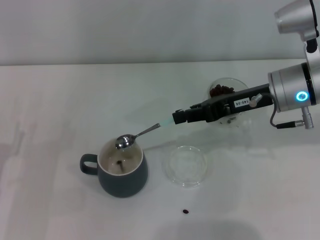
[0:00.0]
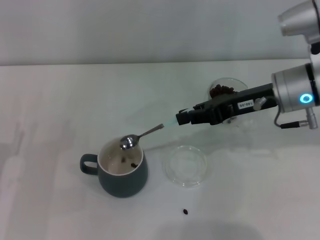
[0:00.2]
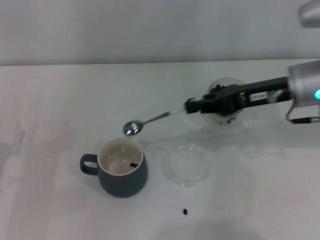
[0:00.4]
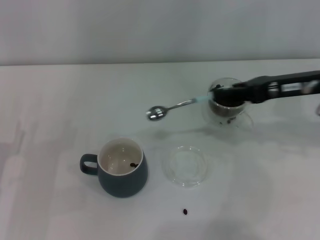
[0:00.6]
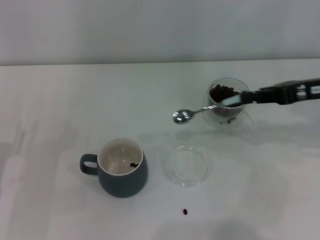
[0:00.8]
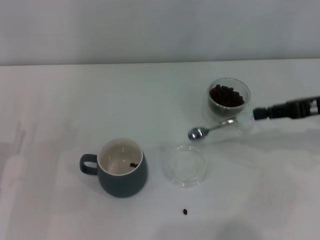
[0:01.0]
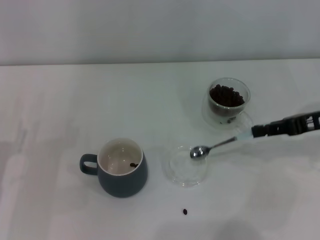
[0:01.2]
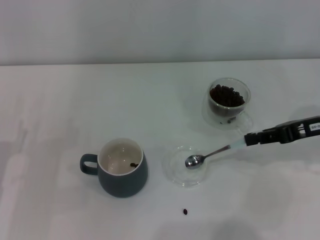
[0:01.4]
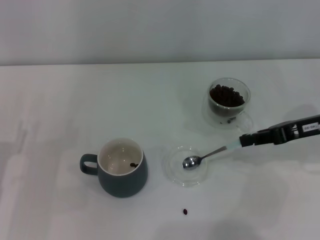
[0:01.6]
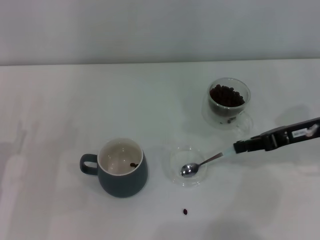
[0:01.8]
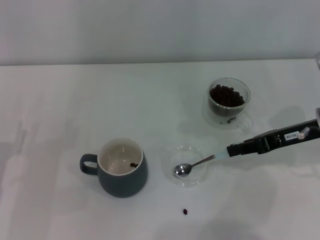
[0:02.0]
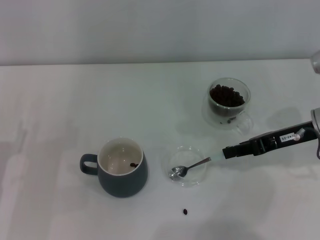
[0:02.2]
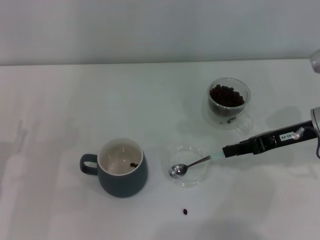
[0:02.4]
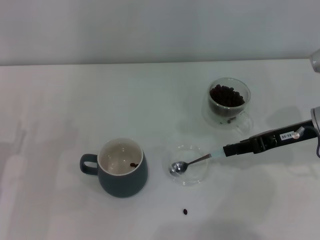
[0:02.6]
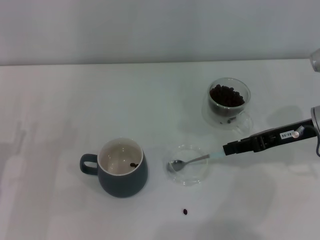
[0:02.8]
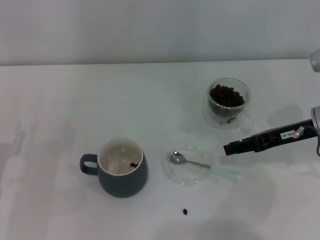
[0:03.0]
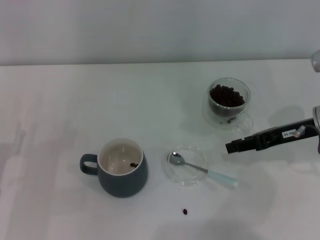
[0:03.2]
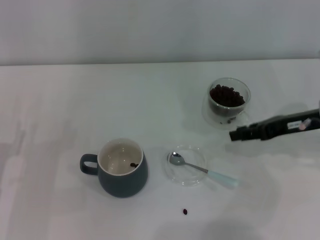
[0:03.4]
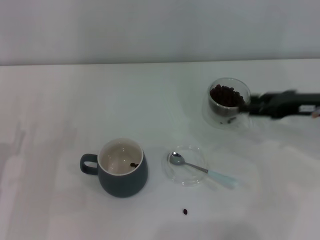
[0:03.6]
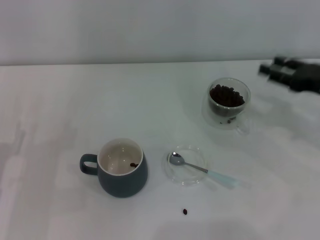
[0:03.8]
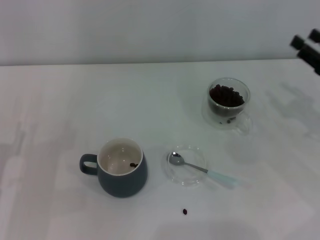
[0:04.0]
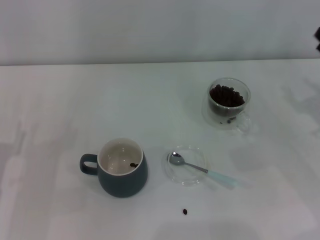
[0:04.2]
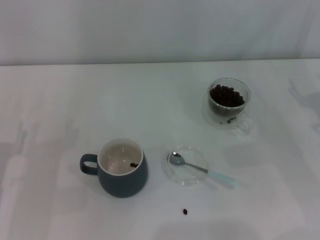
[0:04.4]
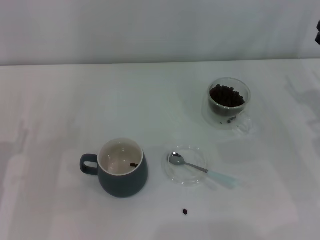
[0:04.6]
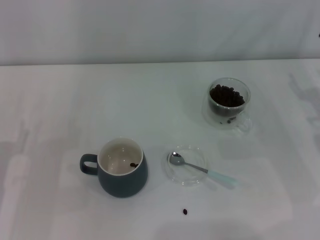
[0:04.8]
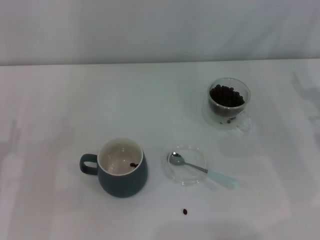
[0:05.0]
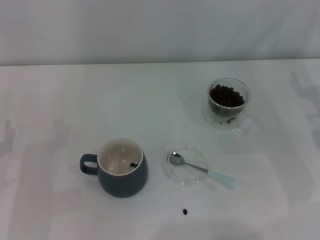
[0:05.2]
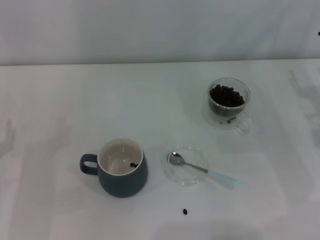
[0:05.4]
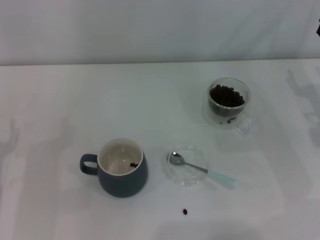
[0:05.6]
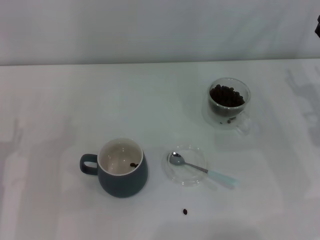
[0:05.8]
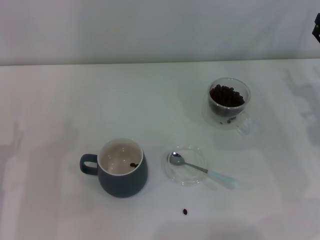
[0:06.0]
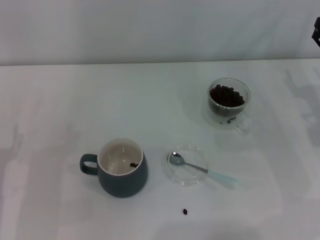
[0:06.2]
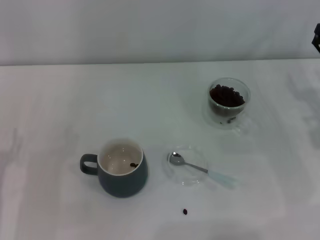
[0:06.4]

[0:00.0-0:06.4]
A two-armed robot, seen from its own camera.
Task of the whole recording: Use a blue spoon to take out the coffee beans from the glass and pour them into the gray cup.
Step, 0:00.4 to 0:03.0: Place the spoon back in its original place with the right gripper.
0:00.0 to 0:01.6: The right gripper moves to the right, approximately 10 cm.
0:01.6 to 0:03.2: There are only small adjustments of the grippers.
0:03.2 to 0:04.8: The right gripper travels to the right by about 5 cm, and opens its fingers.

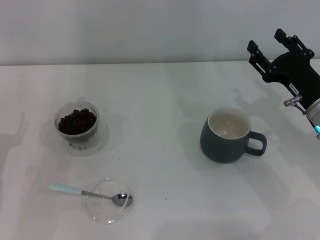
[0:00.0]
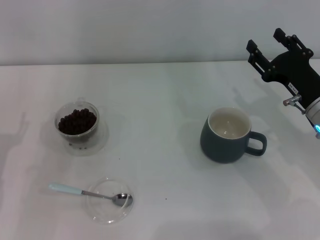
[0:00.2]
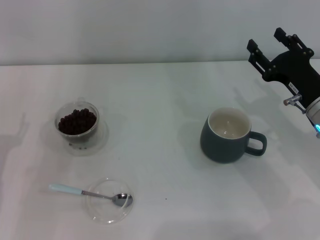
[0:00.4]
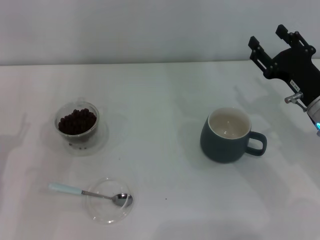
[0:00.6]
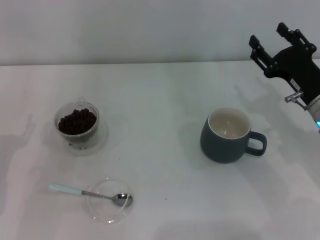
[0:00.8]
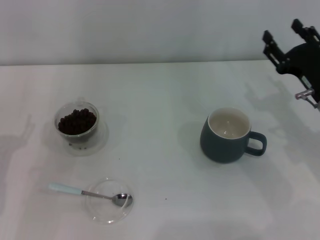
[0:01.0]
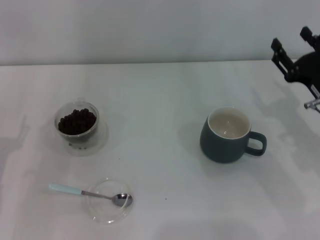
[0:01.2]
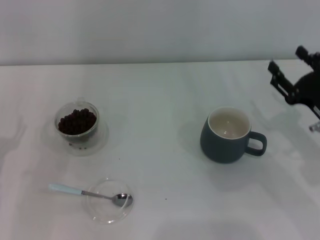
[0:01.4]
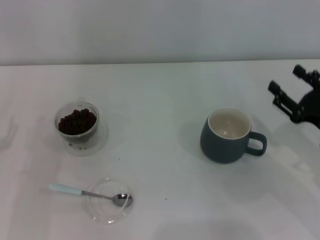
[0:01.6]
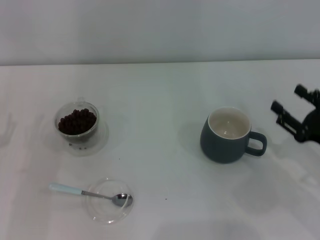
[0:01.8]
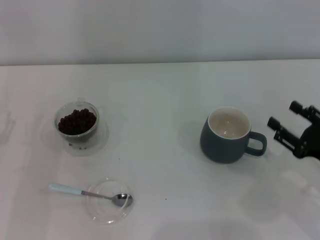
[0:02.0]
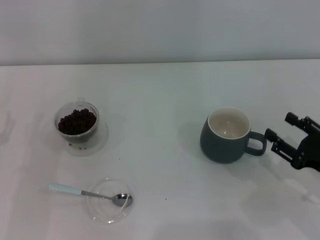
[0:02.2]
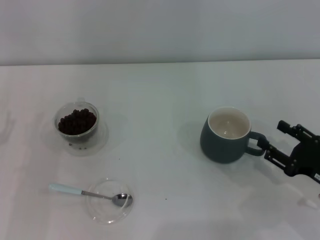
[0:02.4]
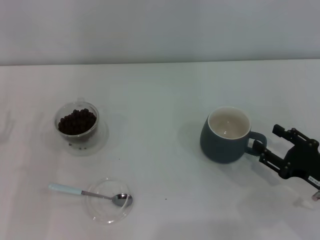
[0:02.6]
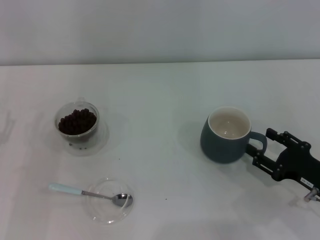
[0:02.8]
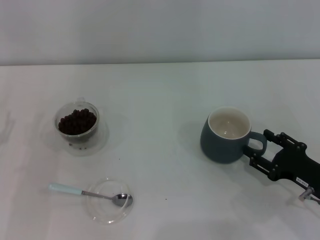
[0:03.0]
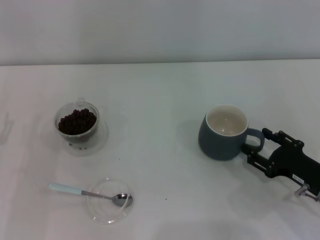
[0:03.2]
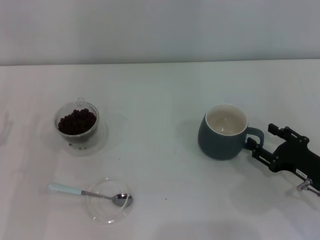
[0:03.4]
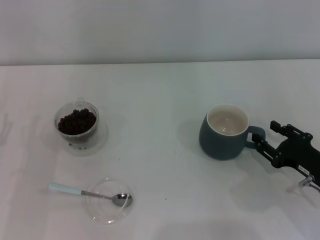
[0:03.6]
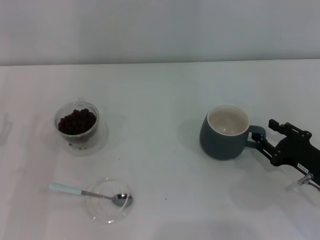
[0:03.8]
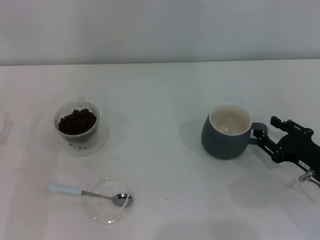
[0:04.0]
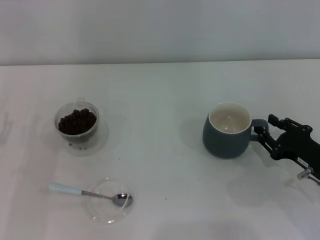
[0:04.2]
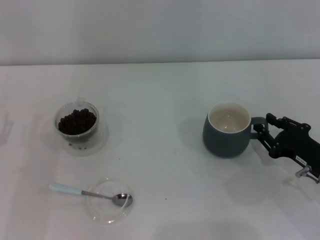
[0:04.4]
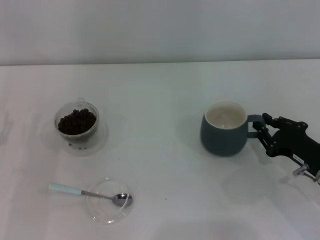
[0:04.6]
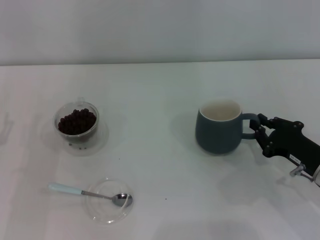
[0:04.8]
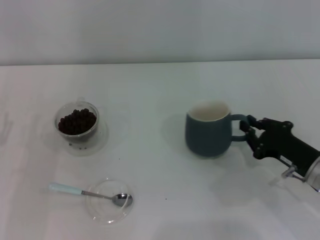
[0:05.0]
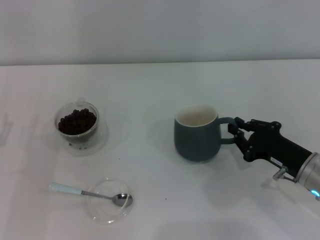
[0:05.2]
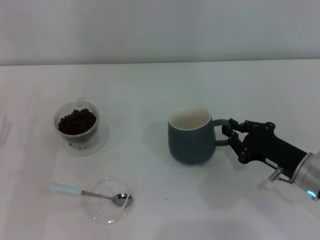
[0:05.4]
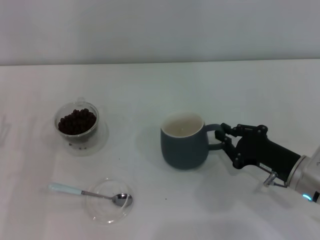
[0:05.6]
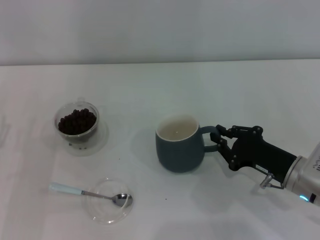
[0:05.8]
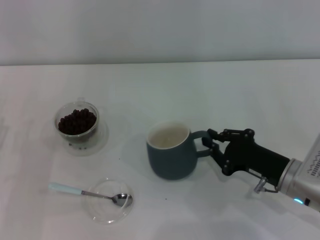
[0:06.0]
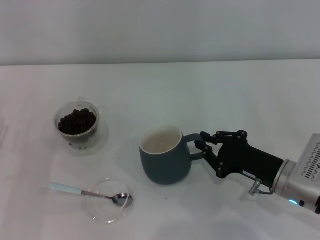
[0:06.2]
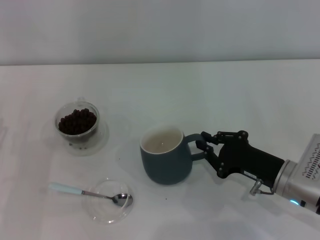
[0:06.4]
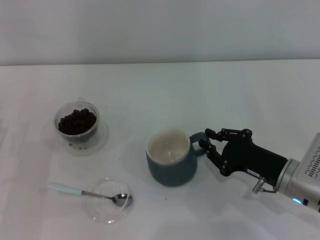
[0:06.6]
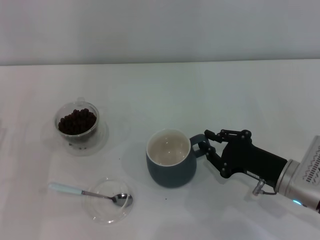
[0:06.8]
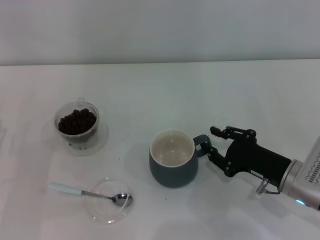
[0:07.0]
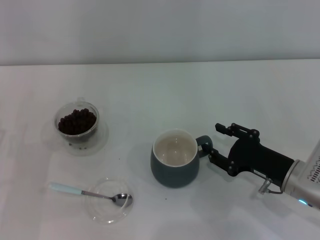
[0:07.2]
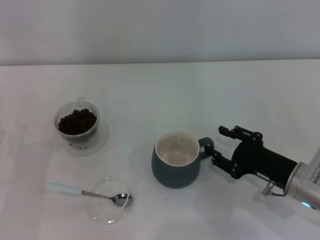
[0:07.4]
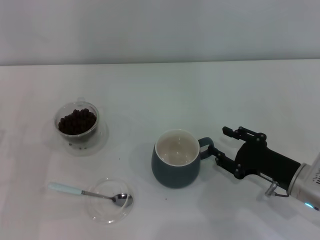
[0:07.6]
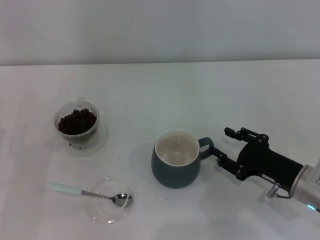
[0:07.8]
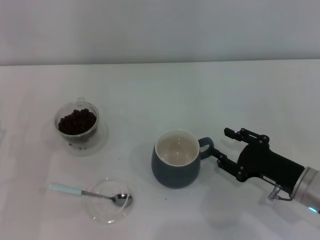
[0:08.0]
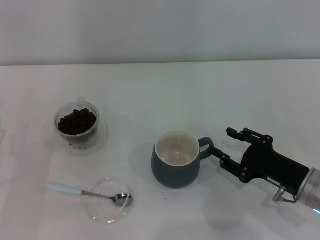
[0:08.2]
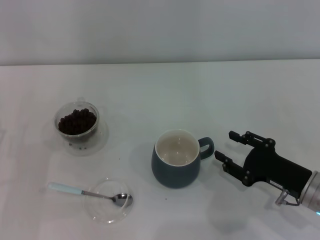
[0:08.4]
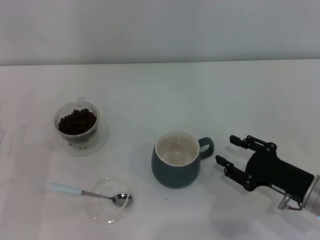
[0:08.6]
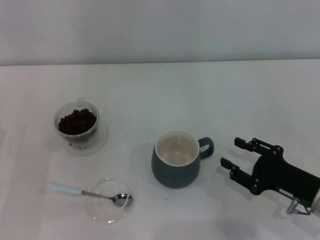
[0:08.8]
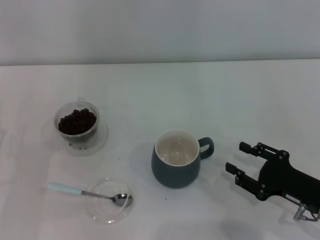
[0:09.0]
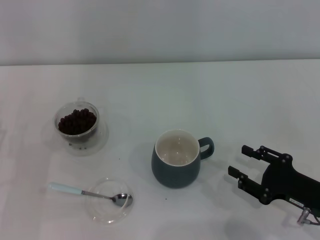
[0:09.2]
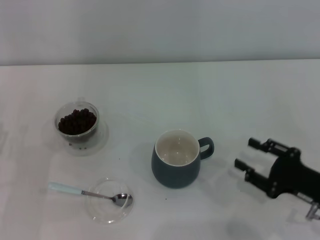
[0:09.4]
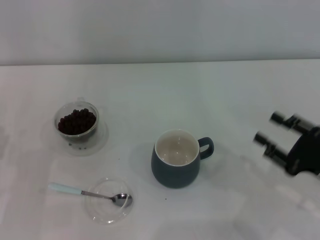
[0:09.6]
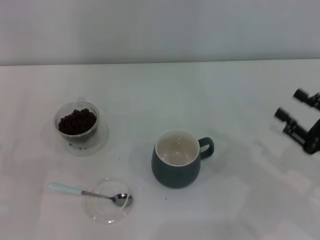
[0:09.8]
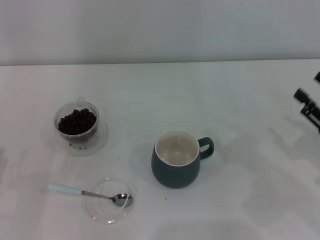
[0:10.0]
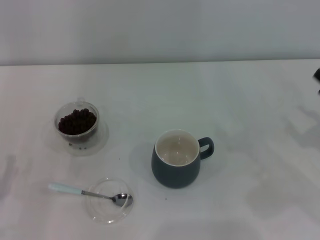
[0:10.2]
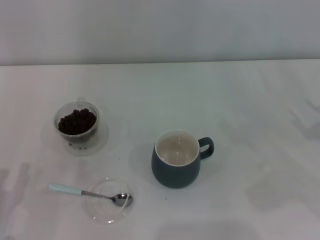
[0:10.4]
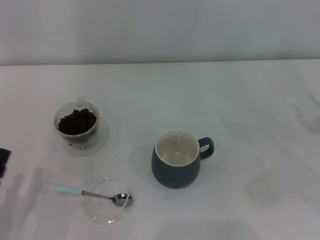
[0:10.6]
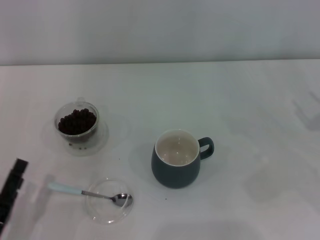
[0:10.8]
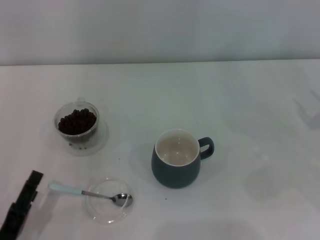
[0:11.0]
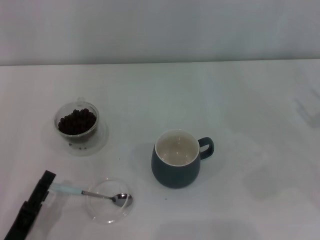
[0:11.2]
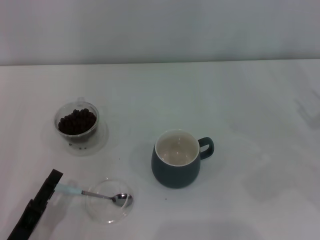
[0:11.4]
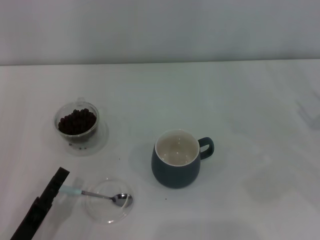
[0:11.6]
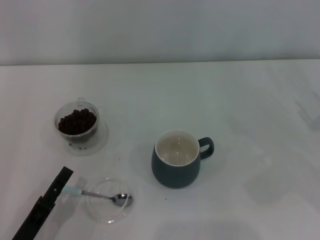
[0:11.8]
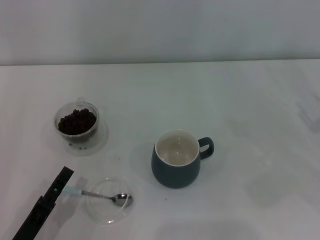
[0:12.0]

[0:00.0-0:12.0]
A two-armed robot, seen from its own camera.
Task of the whole recording: Use a blue spoon to take out the coffee beans from the glass and pour them into the gray cup.
Step, 0:00.0 to 0:08.8: Move the cup to the center of view with the left gripper.
0:00.0 to 0:01.6: The right gripper goes some 5 cm backward.
0:01.6 to 0:03.0: The right gripper changes place by about 5 cm.
0:03.0 to 0:04.4: The grippers make only small movements.
0:04.4 to 0:06.0: The right gripper shifts approximately 5 cm to the left, and closes up.
0:06.0 to 0:07.6: The right gripper opens up.
0:07.6 to 0:09.0: The right gripper moves about 5 cm.
0:09.0 to 0:10.4: The right gripper shifts roughly 10 cm to the right and upward.
0:10.4 to 0:12.0: The left gripper goes approximately 5 cm to the right.

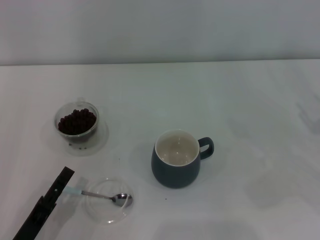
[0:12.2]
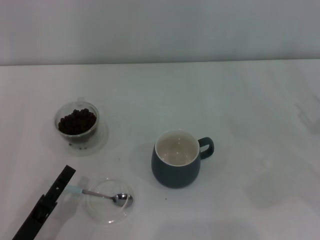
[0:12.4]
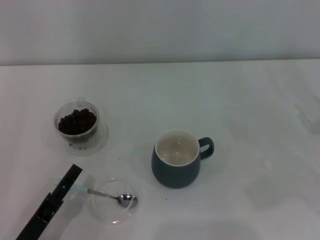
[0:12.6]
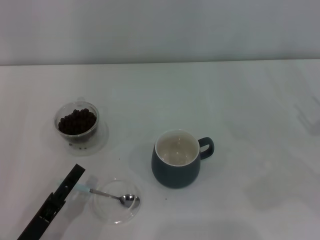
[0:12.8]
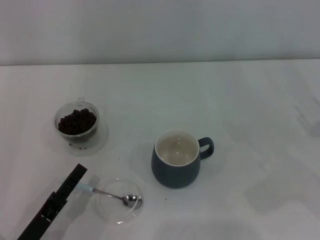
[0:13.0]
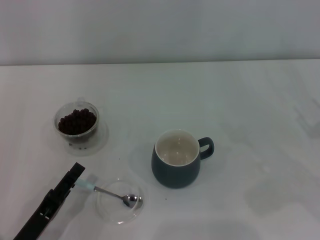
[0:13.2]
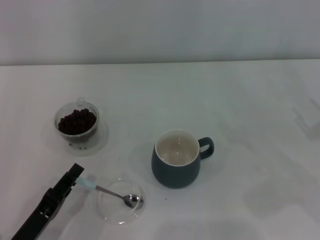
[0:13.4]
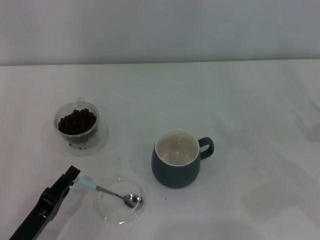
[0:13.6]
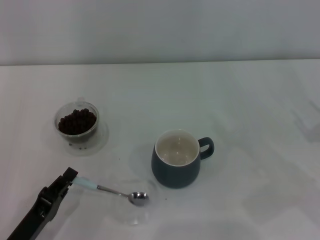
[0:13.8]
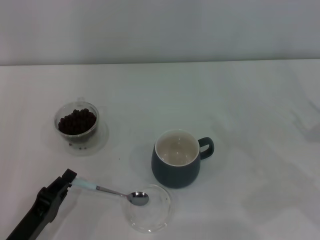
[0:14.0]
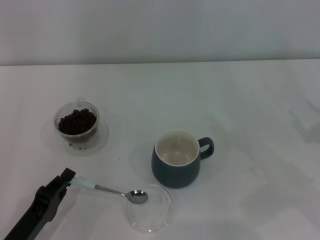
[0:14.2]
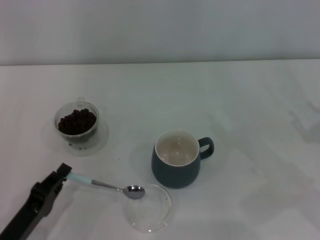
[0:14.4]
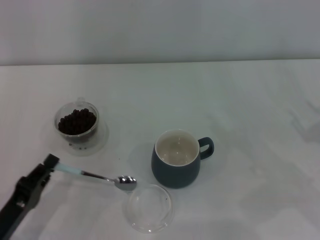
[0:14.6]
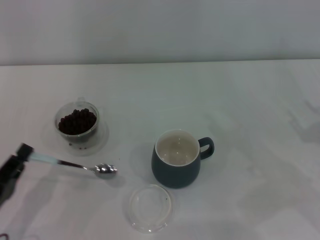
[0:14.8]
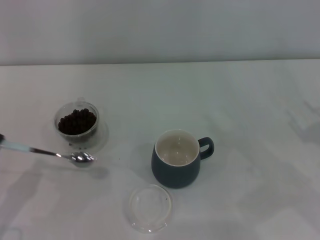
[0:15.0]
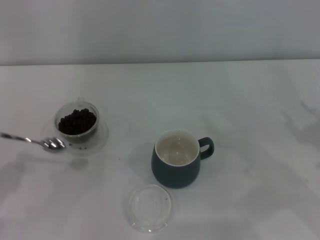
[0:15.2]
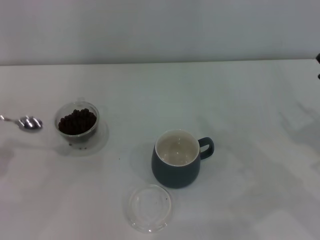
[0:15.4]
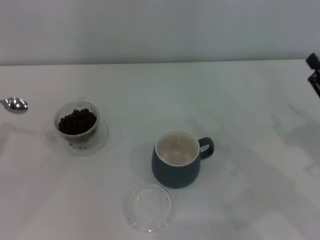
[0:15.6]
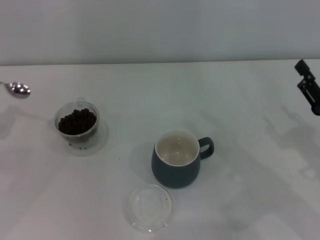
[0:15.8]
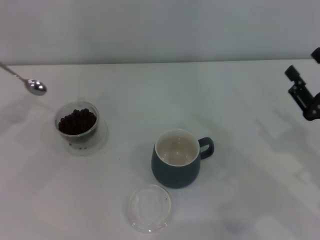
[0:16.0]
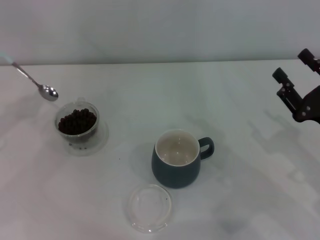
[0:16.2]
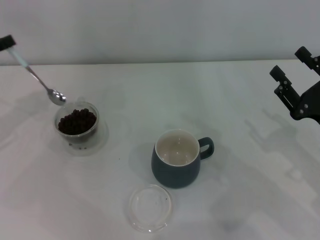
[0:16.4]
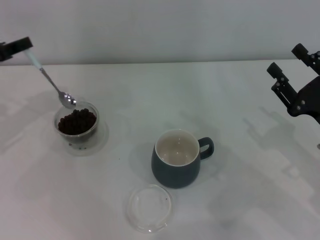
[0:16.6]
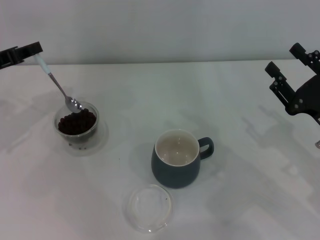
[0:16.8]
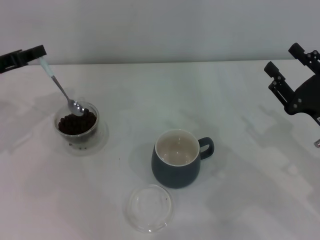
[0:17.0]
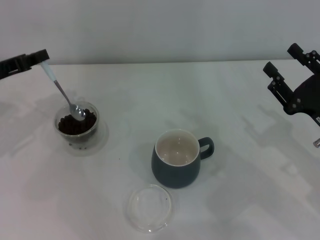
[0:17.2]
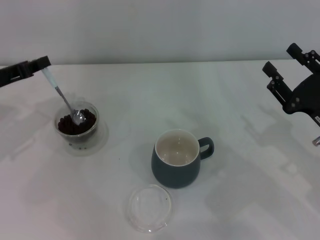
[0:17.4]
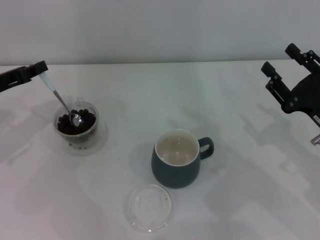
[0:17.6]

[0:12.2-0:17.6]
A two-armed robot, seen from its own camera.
Task of the whole recording: Use a blue spoon to take out the coffee beans from the glass and pour them into the gray cup.
Step, 0:12.2 to 0:14.6: Pick up the spoon with the right gripper.
0:12.2 to 0:13.6: The left gripper closes up.
0:13.6 to 0:15.0: The left gripper shifts approximately 5 cm to the left, and closes.
0:15.0 to 0:16.2: The right gripper is displaced to the left by about 5 cm. The left gripper is displaced forward and upward by about 20 cm.
0:16.2 to 0:17.6: The left gripper heads to the right, covering some 5 cm.
